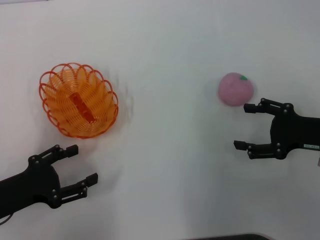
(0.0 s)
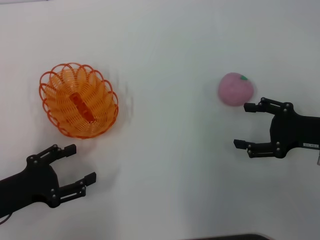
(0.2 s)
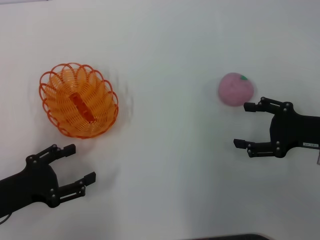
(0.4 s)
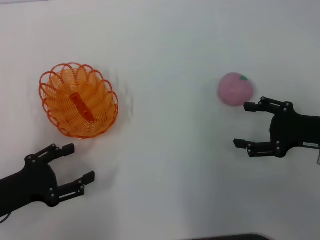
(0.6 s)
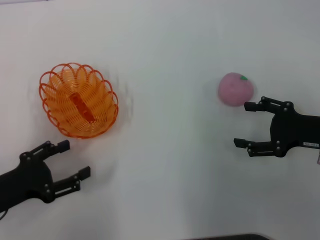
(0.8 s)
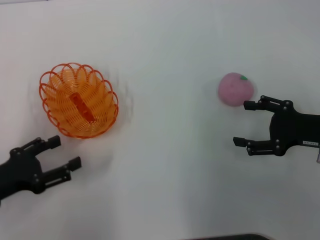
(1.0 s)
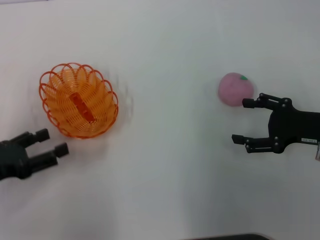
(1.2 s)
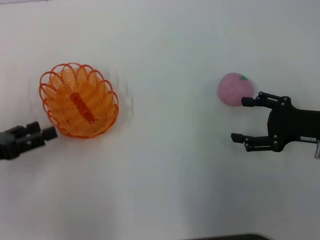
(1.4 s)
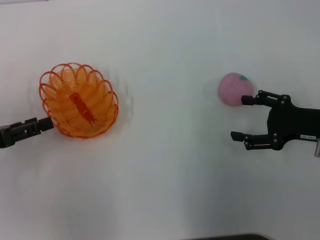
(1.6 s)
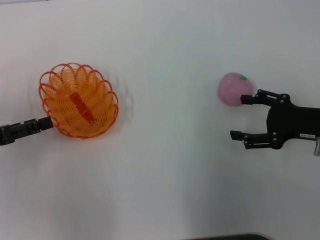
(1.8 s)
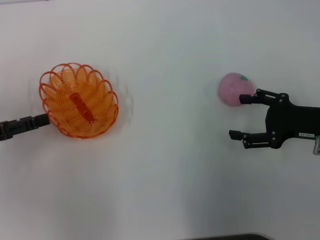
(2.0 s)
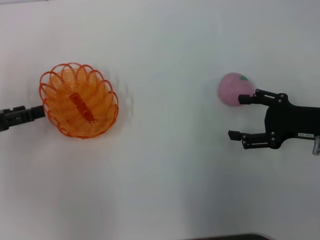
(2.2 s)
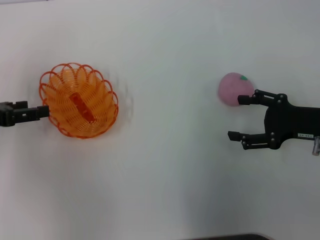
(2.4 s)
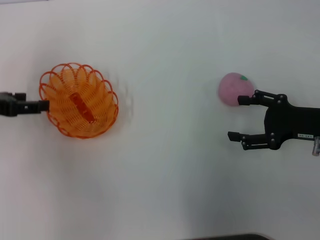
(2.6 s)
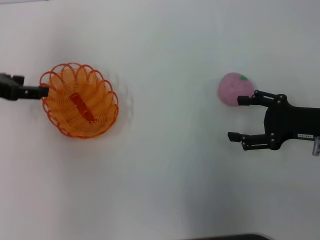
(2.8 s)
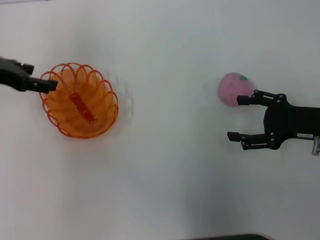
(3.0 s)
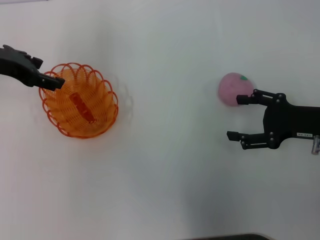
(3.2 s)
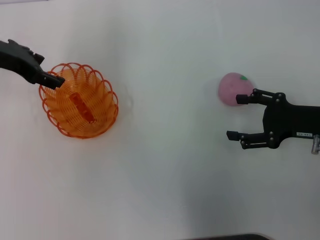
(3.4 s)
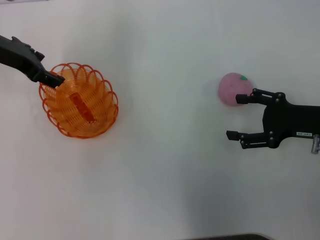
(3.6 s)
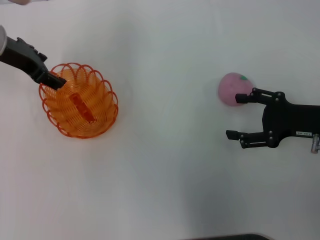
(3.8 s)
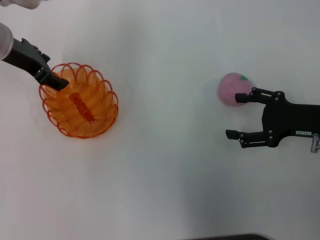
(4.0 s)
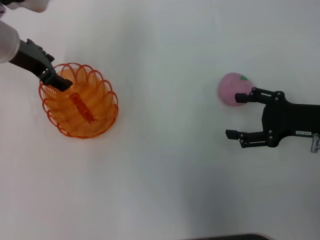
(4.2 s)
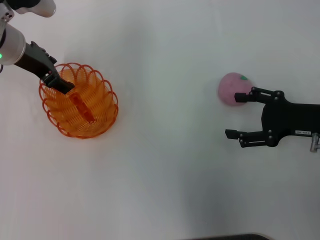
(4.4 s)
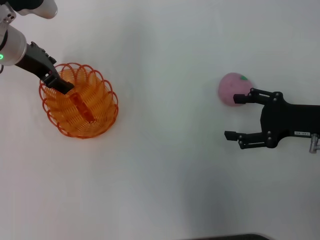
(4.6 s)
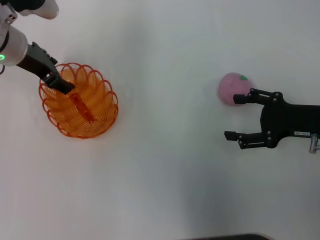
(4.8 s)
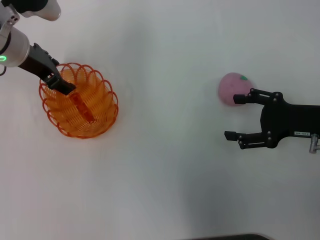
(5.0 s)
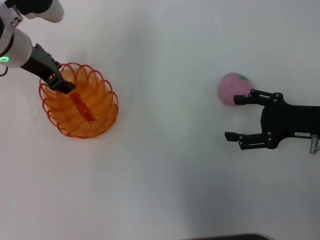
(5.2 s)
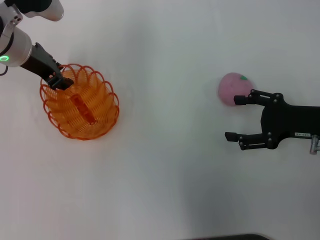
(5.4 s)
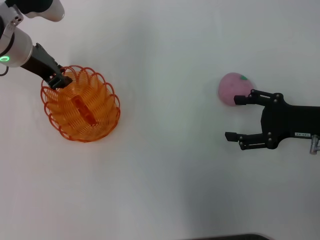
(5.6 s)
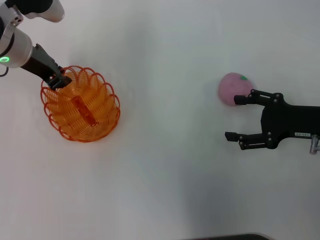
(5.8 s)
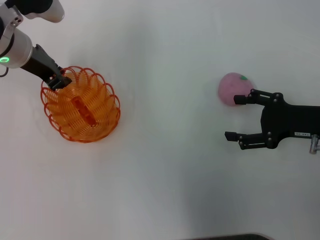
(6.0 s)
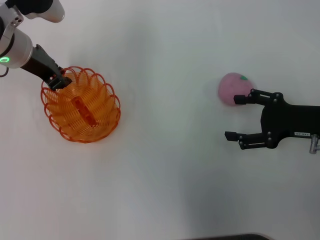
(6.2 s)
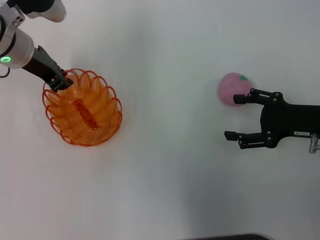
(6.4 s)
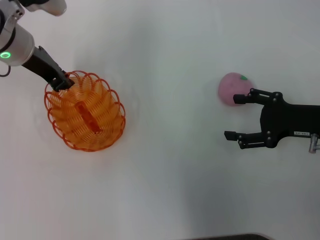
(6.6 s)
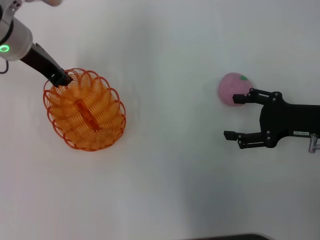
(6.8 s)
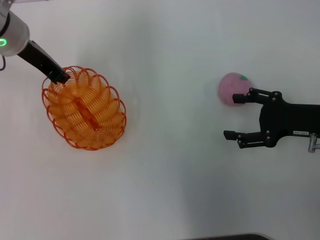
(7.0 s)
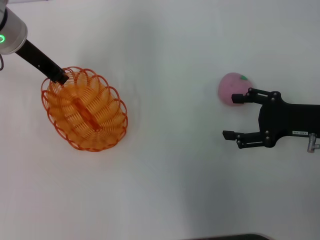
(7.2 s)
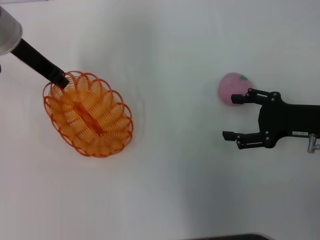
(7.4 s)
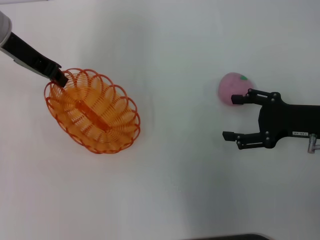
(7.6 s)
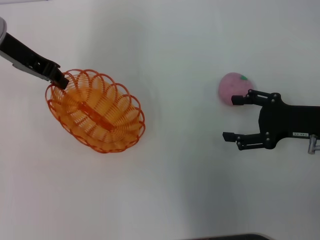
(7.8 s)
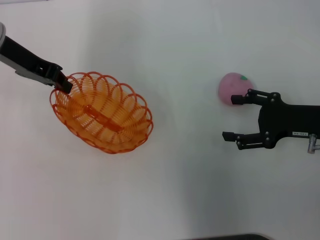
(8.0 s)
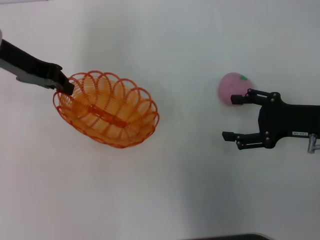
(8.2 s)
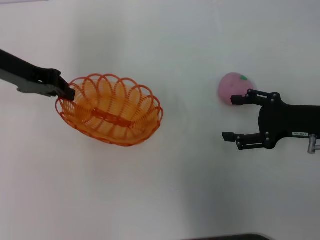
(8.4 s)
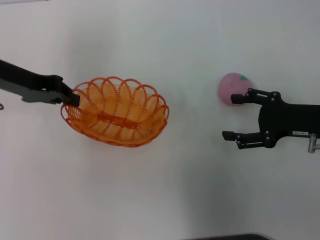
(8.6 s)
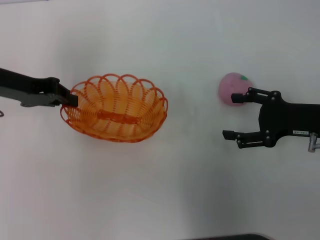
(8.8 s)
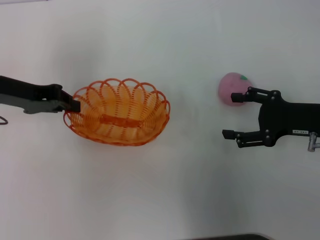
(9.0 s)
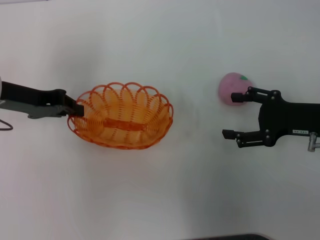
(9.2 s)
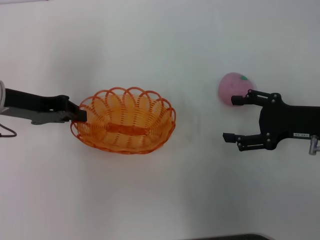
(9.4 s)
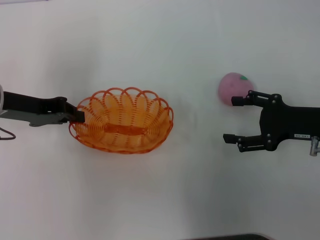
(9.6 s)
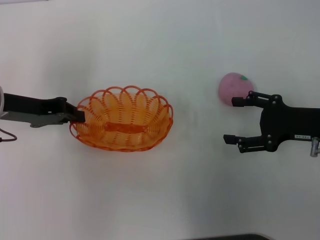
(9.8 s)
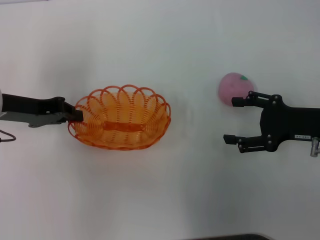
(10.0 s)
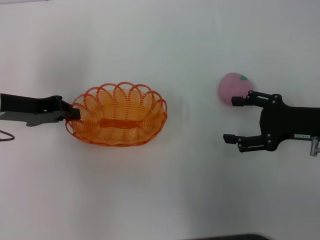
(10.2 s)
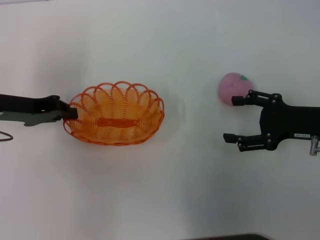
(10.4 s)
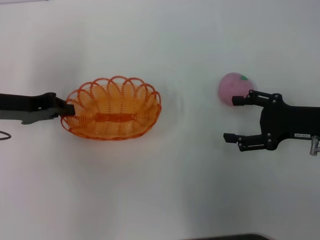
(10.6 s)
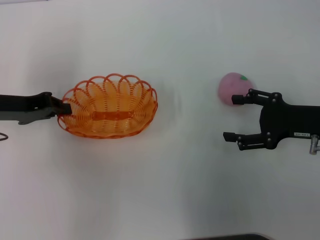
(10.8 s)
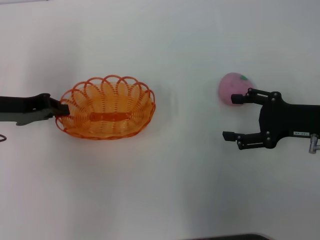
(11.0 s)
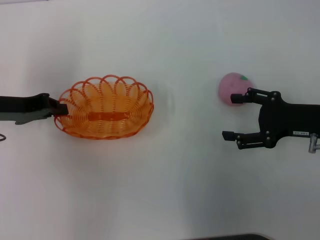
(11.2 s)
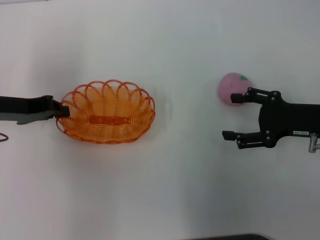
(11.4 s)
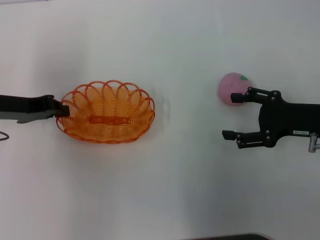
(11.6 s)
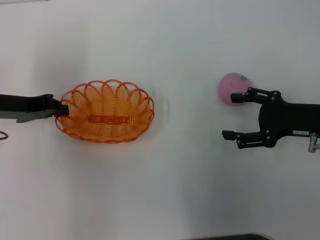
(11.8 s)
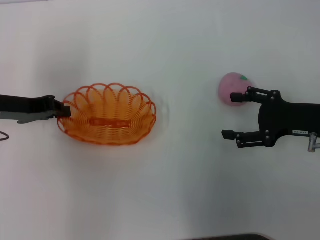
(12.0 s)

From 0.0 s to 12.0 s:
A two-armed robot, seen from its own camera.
Step, from 0.0 s to 7.8 s: Pick up the basket with the left gripper.
From 0.0 s to 1.6 s: The left gripper moves forward, upward and to the left, some 10 cm.
From 1.6 s to 3.0 s: The left gripper goes approximately 15 cm forward, upward and to the right.
From 3.0 s to 4.4 s: The left gripper shifts about 10 cm to the right.
From 4.4 s to 6.0 s: The left gripper closes its fingers.
From 6.0 s to 7.6 s: The left gripper changes place by roughly 5 cm.
From 7.6 s to 9.0 s: The left gripper is displaced backward and downward by approximately 10 cm.
From 9.0 s to 12.0 s: The grippers make only small movements.

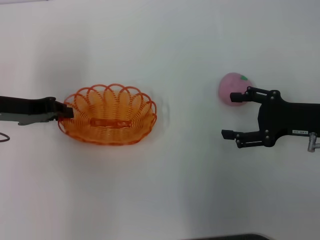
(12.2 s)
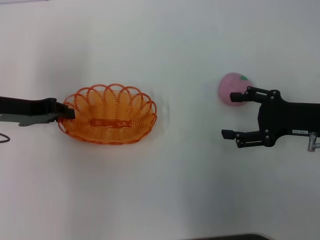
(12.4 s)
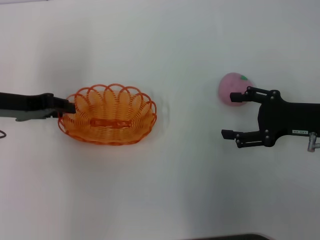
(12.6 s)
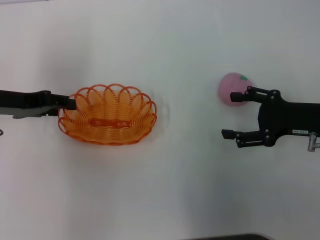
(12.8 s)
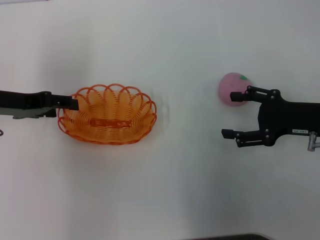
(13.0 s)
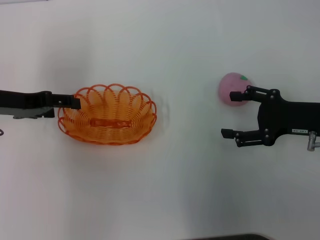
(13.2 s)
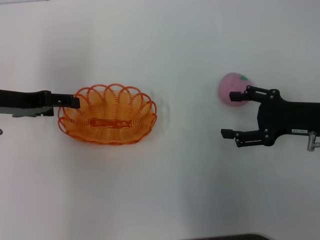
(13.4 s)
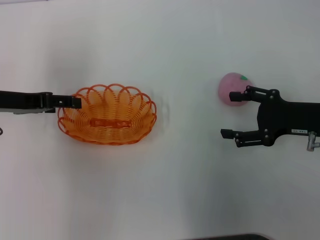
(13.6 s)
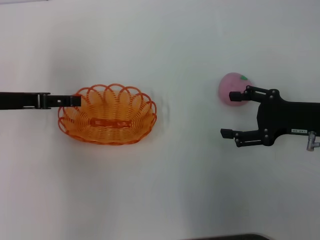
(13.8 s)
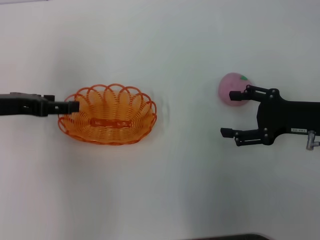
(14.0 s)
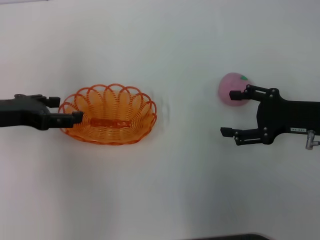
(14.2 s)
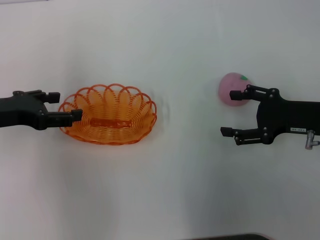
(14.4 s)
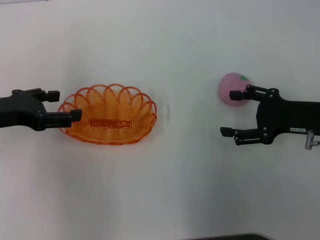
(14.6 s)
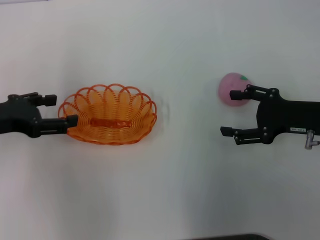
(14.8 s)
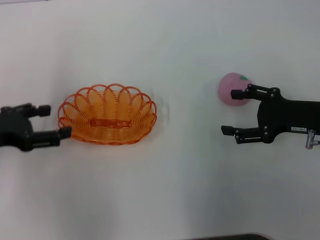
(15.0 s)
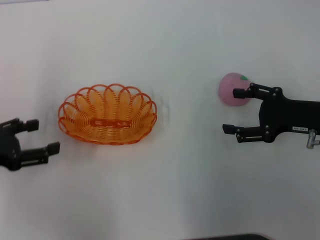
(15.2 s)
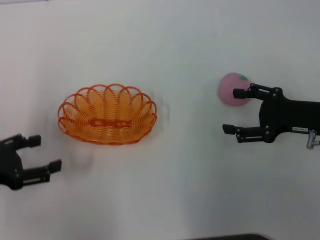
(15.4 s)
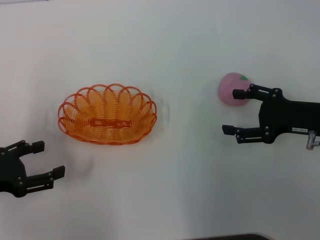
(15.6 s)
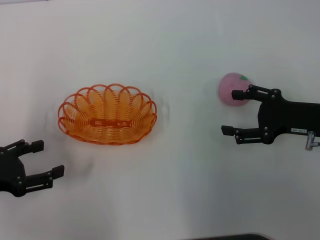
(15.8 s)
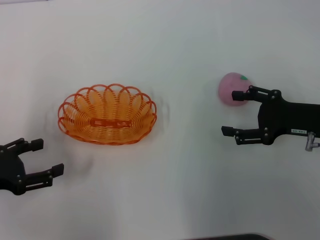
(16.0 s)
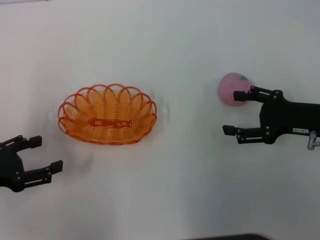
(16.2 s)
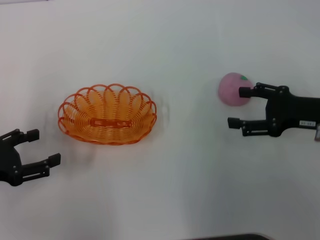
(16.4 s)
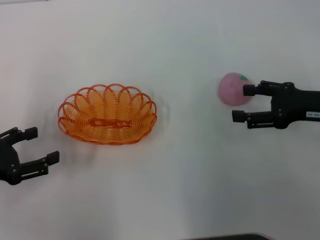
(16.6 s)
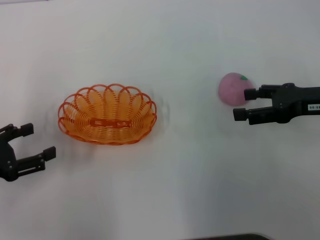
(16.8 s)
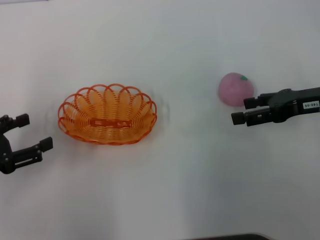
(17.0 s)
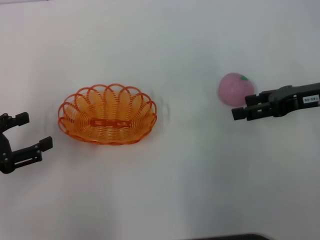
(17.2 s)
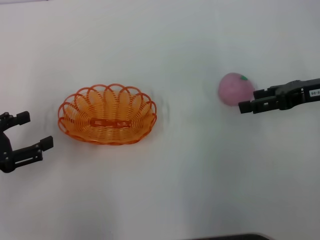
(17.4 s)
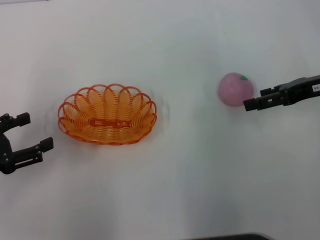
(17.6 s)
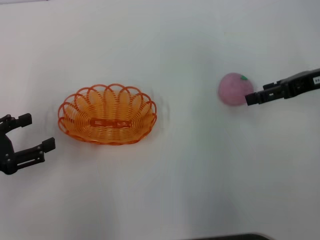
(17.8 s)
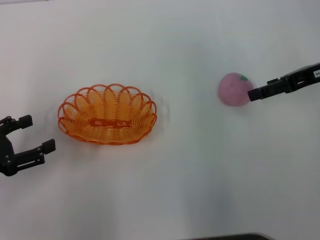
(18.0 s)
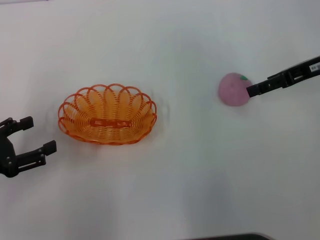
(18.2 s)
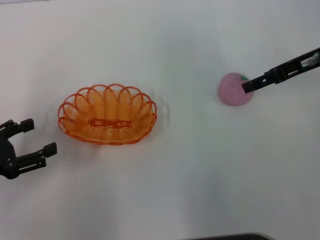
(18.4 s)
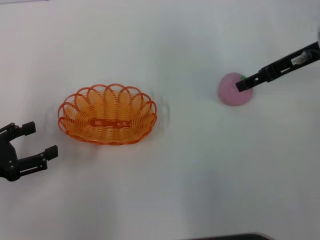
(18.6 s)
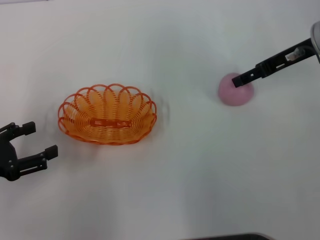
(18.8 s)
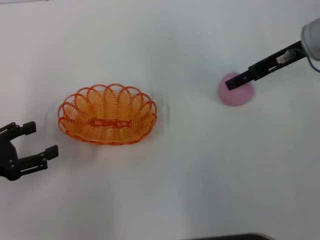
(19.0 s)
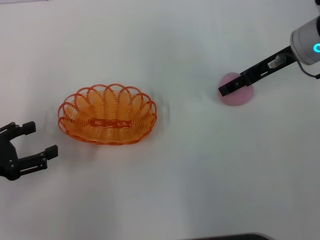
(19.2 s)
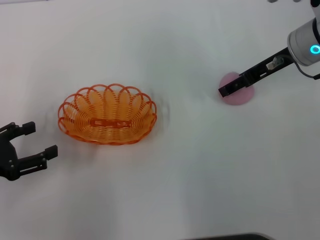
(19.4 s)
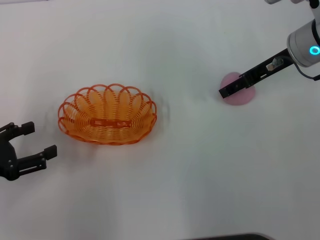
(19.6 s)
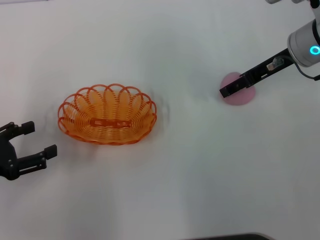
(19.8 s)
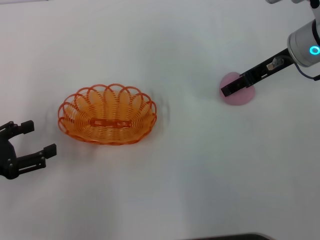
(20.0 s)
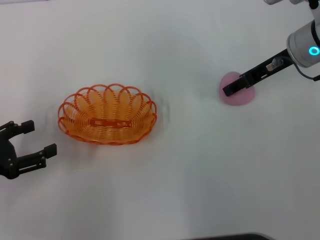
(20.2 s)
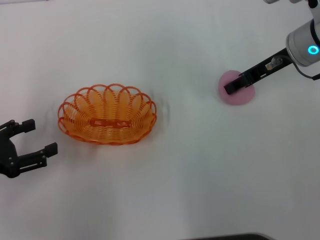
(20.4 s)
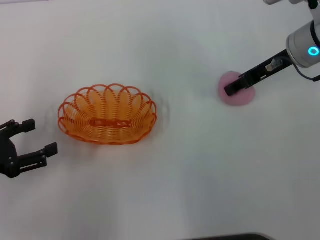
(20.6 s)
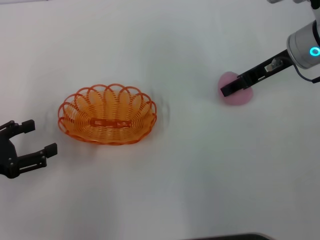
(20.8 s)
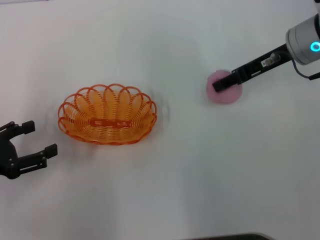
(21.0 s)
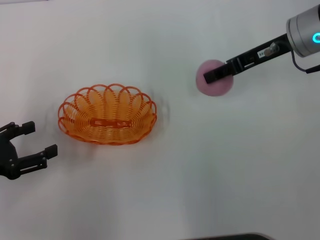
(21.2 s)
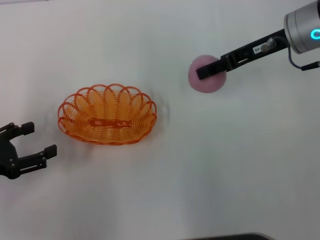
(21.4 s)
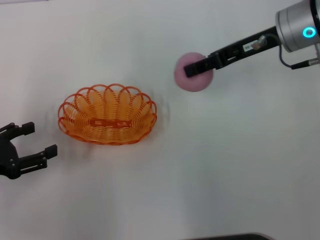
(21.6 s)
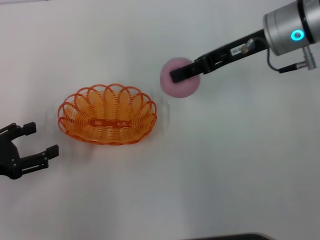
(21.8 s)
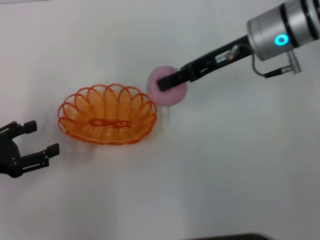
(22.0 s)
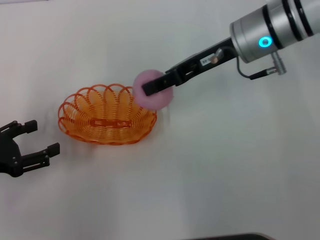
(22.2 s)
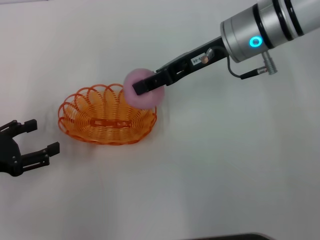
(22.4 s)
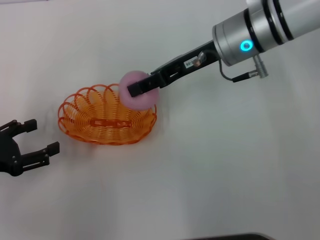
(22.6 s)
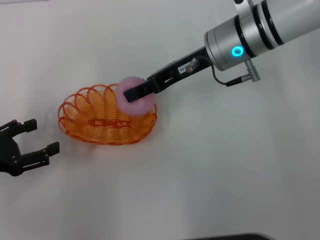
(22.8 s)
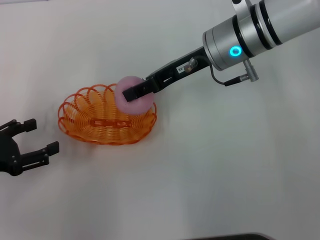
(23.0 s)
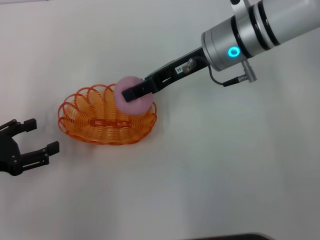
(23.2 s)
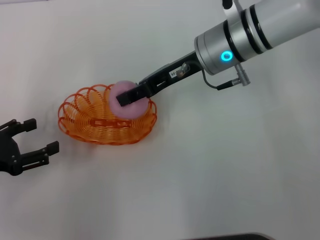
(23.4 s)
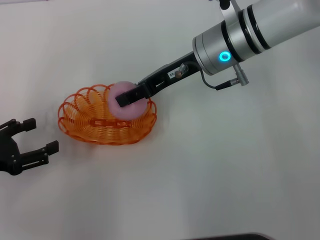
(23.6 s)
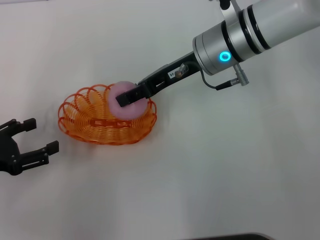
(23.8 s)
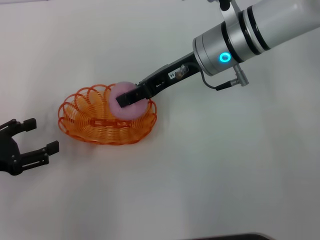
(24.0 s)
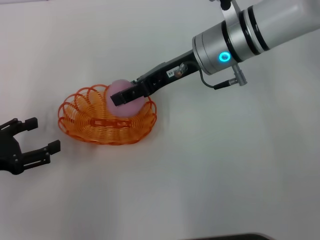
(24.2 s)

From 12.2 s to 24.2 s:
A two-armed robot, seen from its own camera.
Step, from 14.0 s to 21.4 s: Pick up the peach with the right gripper.
From 12.2 s to 13.8 s: The left gripper opens up.
From 13.8 s to 15.2 s: The left gripper heads backward, covering some 10 cm.
From 15.2 s to 16.6 s: The grippers stay close to where they were, moving slightly.
From 16.6 s to 18.2 s: The right gripper goes roughly 10 cm forward and upward.
From 18.2 s to 19.8 s: The right gripper moves to the left, about 5 cm.
From 19.8 s to 21.2 s: The right gripper closes its fingers.
From 21.2 s to 22.6 s: The right gripper is displaced to the left by approximately 10 cm.
From 22.6 s to 24.2 s: The grippers move only a little.
